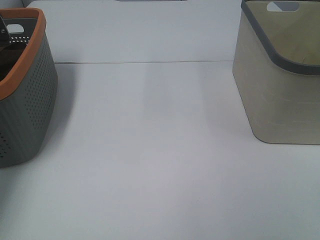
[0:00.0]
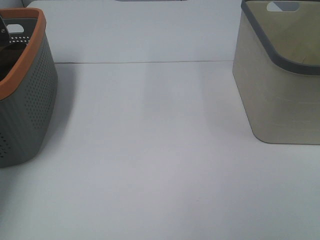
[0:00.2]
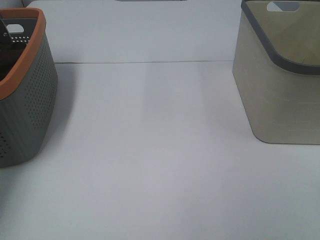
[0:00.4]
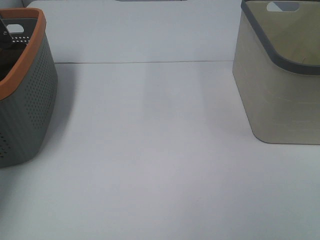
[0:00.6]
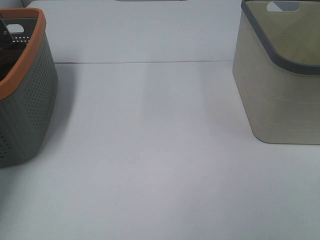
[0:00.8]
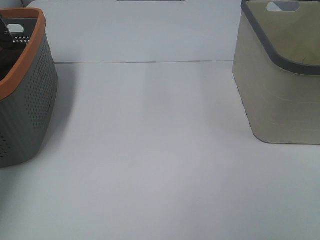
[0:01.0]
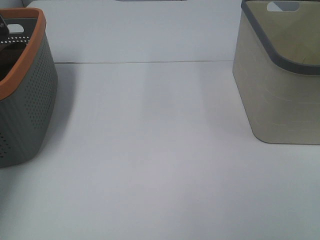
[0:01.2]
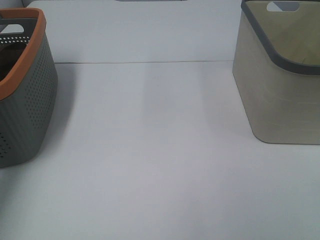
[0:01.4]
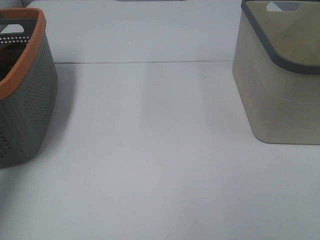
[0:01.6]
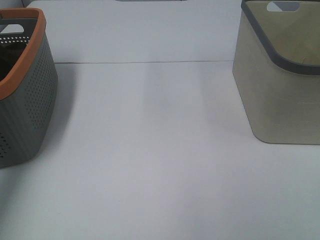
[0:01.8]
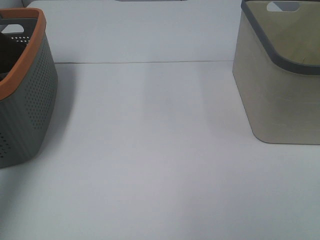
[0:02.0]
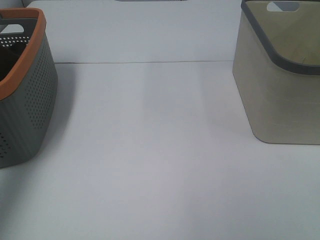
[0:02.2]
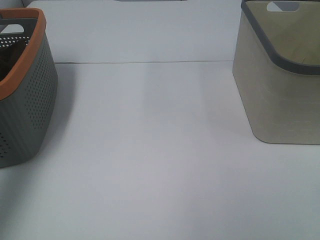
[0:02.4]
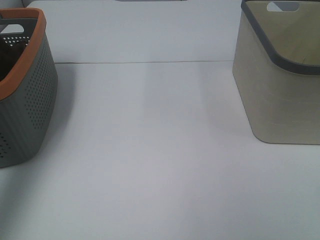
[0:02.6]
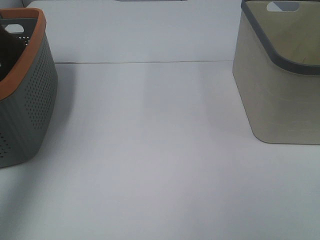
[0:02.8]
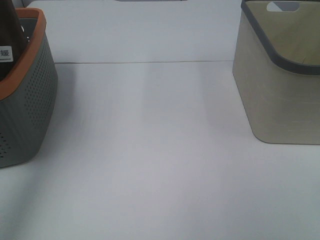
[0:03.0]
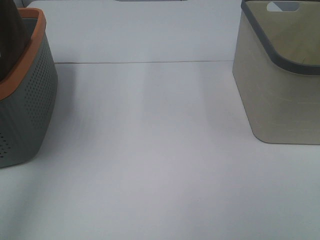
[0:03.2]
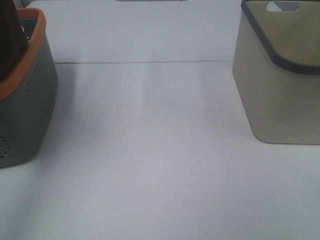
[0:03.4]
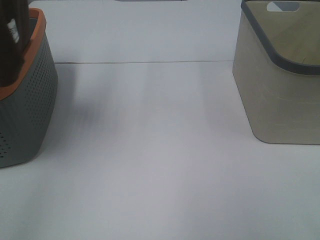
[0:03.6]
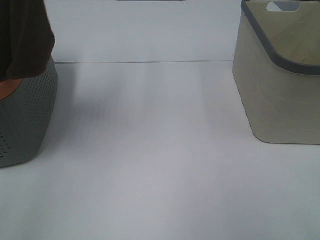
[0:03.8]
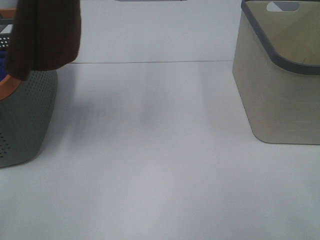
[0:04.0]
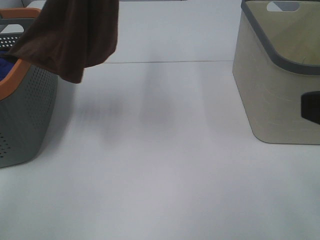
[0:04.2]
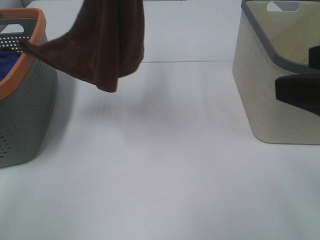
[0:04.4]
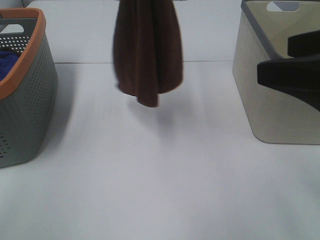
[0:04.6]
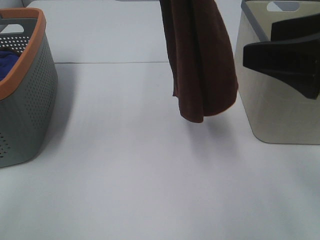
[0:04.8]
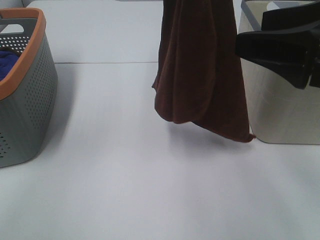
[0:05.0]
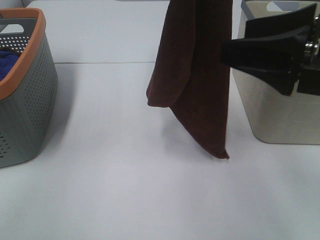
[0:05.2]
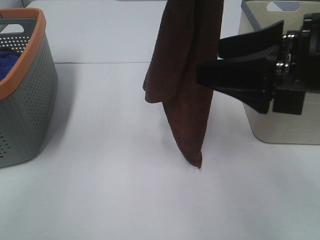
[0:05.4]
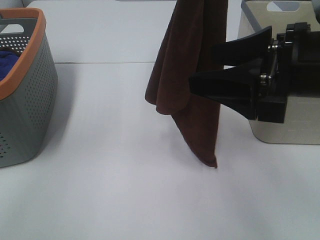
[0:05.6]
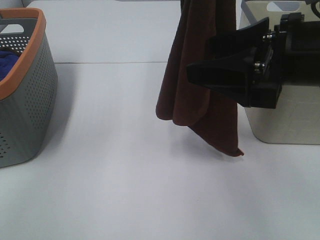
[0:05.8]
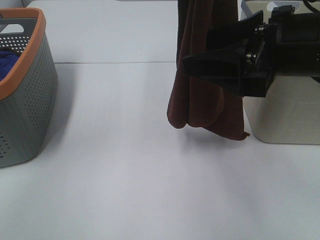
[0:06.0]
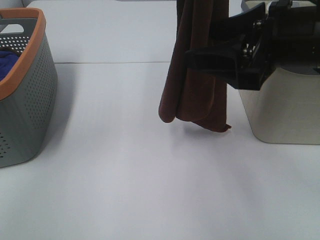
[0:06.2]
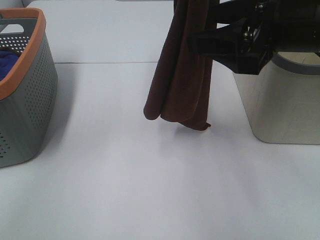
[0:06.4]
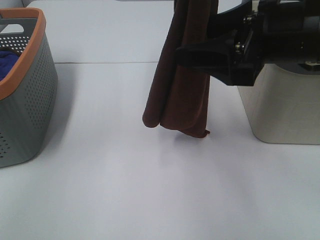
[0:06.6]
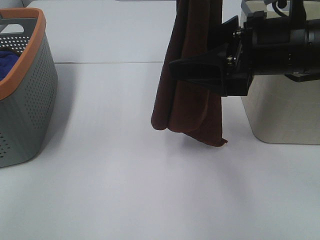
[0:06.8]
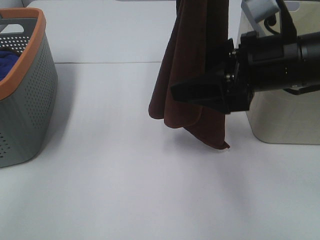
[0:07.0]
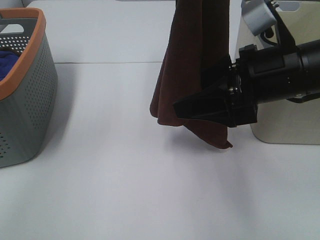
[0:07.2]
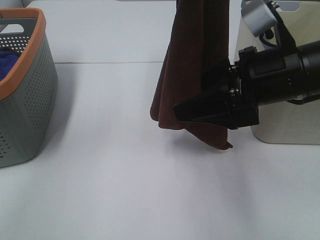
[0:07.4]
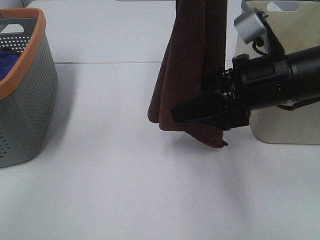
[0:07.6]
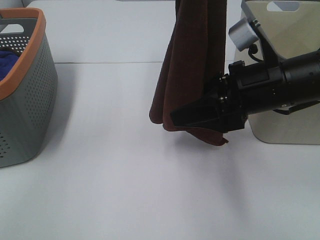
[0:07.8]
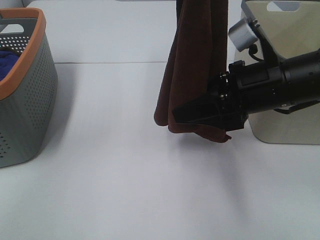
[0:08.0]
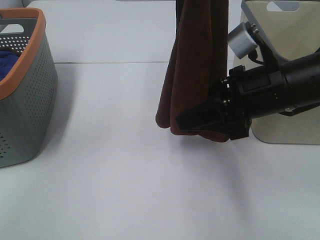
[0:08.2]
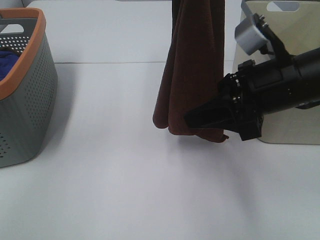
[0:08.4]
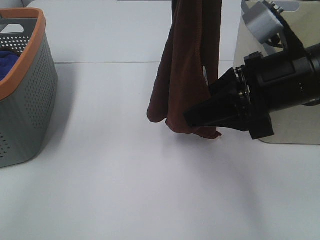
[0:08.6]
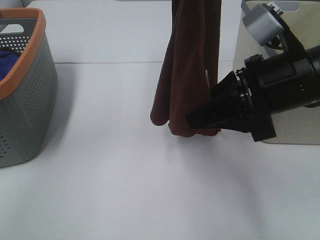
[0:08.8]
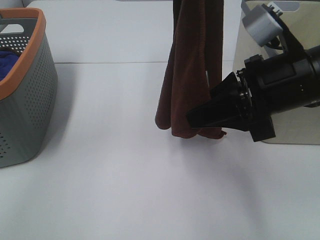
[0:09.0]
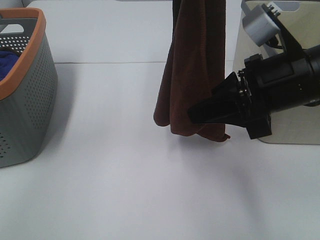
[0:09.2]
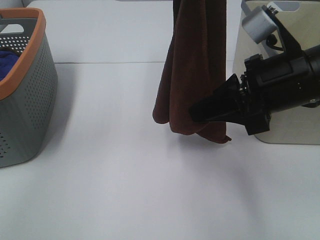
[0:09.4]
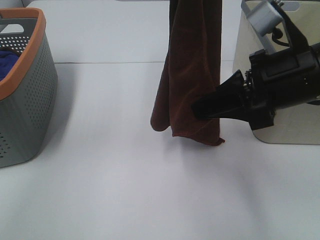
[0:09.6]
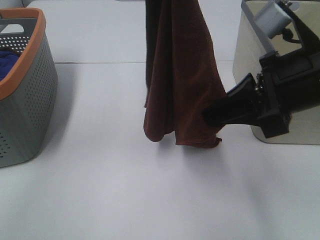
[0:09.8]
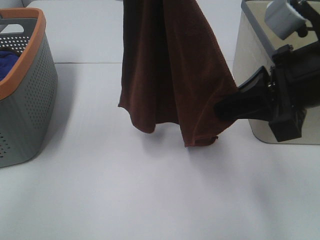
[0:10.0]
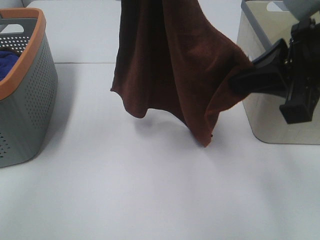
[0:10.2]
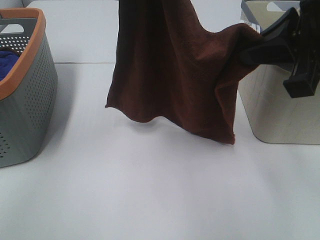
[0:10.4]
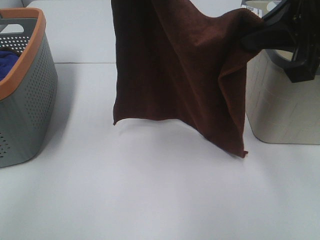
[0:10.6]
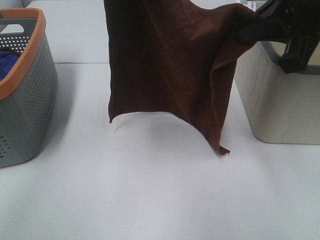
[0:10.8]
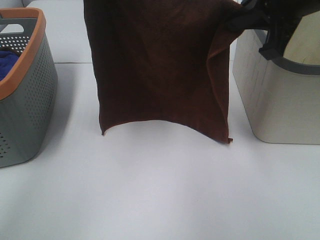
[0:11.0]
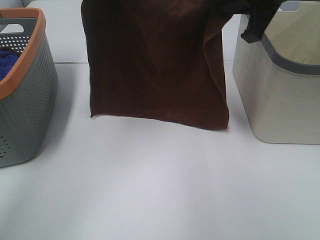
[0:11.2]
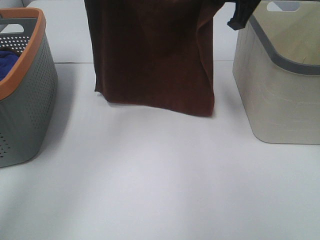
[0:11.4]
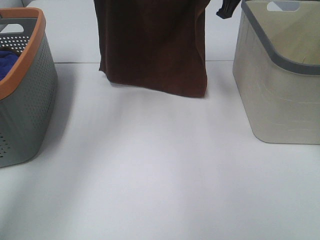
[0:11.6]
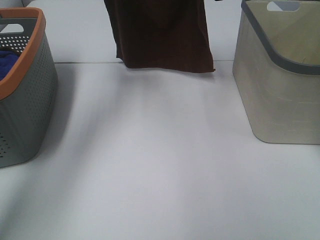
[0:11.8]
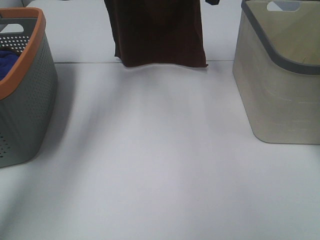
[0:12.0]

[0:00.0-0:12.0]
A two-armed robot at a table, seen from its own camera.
Task of the whole recording: Remove the towel and place it.
Step, 0:02.4 to 0:07.6: Right hand: grab a corner of the brown towel and straighten it.
Step, 0:07.8 to 0:10.4: Left hand: spread the brown towel flat on the table.
Step, 0:07.8 to 0:10.4: Right hand: spread the brown towel flat on the table.
0:01.6 to 0:03.0: The left gripper goes about 25 cm upward, backward and to the right.
0:03.0 to 0:04.4: The right gripper goes roughly 15 cm forward. Meanwhile the left gripper moves to the right, some 15 cm.
0:04.4 to 0:06.0: The left gripper shifts about 10 cm to the right, while the right gripper goes roughly 10 cm forward and to the left.
0:06.0 to 0:07.6: The right gripper heads downward, covering approximately 5 cm.
0:07.6 to 0:09.0: The right gripper closes.
0:09.0 to 0:10.4: The right gripper heads upward, covering roughly 10 cm. The left gripper shifts by approximately 5 cm.
0:10.4 to 0:12.0: The right gripper is displaced forward by some 30 cm. Meanwhile the left gripper heads forward, downward and to the left, covering about 25 cm.

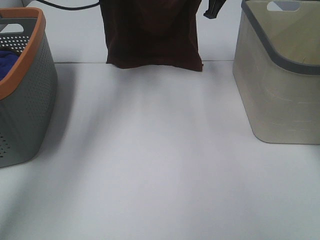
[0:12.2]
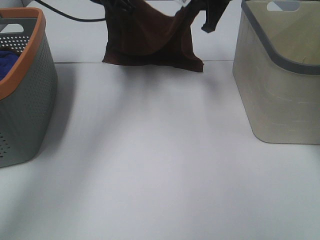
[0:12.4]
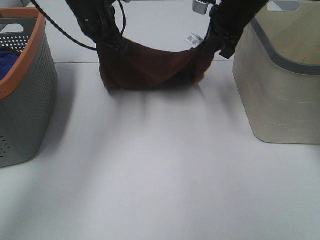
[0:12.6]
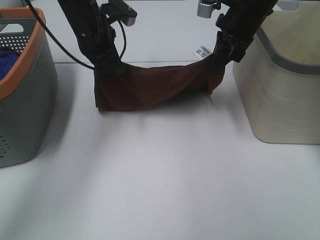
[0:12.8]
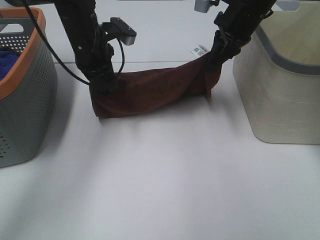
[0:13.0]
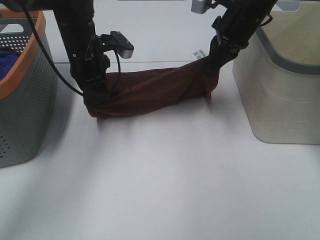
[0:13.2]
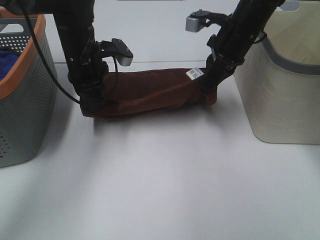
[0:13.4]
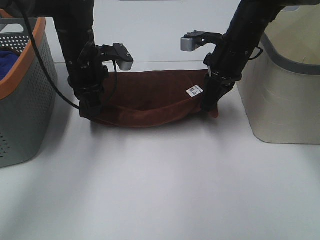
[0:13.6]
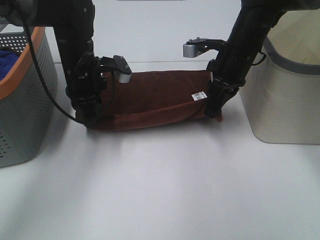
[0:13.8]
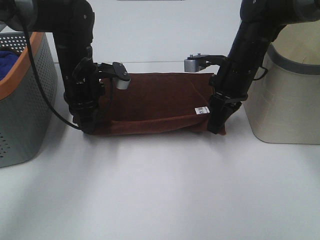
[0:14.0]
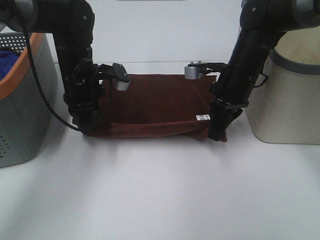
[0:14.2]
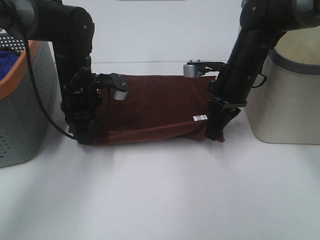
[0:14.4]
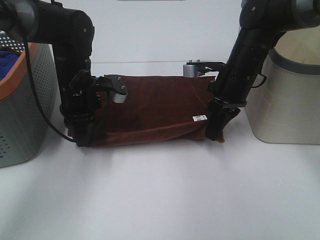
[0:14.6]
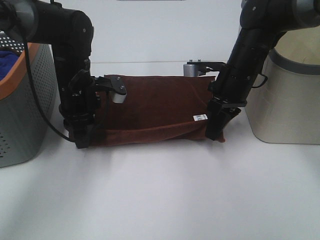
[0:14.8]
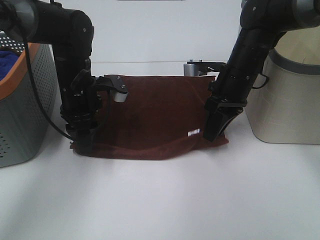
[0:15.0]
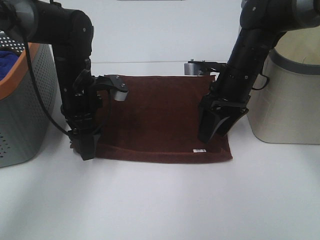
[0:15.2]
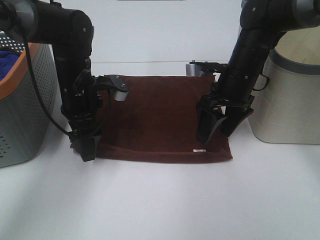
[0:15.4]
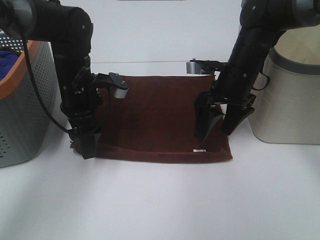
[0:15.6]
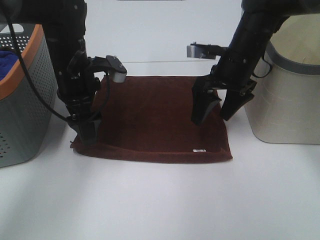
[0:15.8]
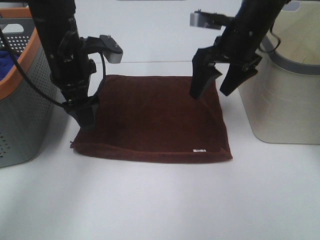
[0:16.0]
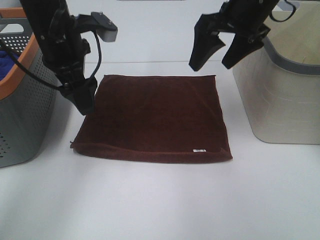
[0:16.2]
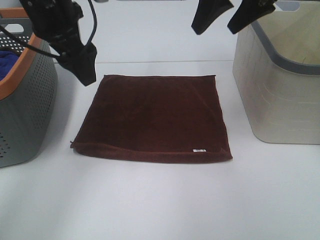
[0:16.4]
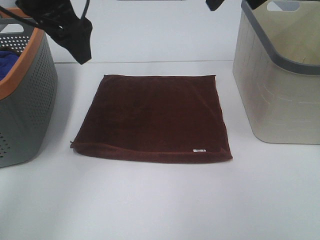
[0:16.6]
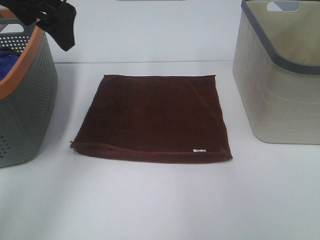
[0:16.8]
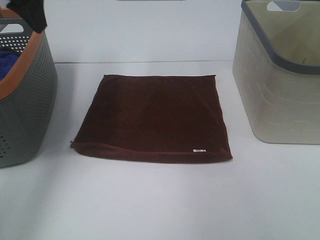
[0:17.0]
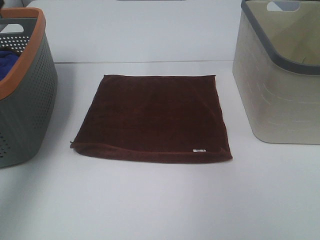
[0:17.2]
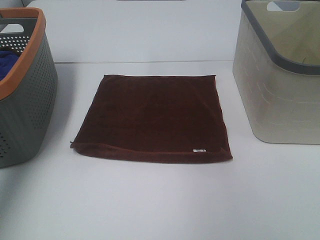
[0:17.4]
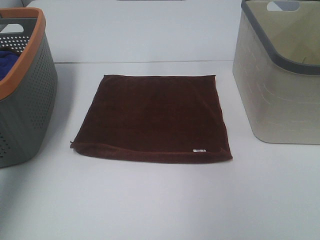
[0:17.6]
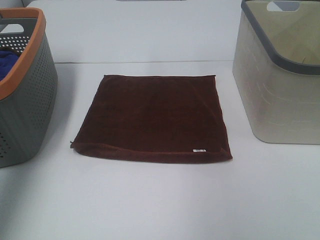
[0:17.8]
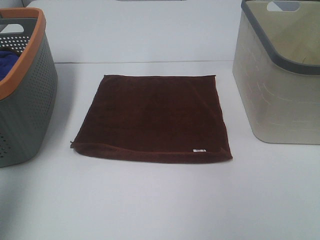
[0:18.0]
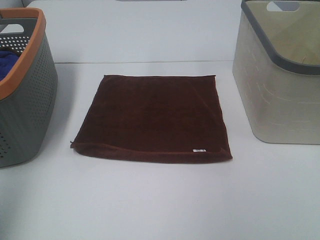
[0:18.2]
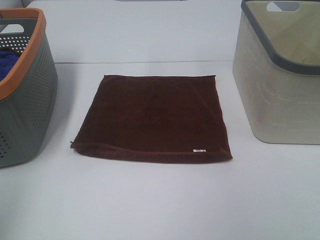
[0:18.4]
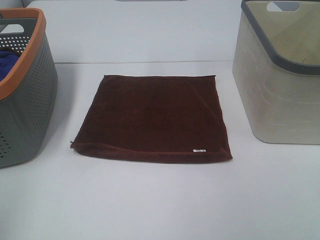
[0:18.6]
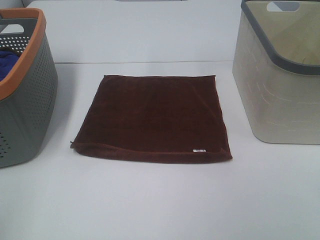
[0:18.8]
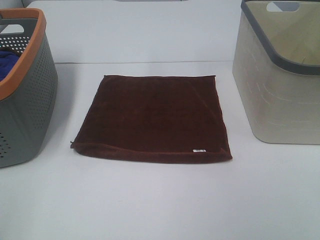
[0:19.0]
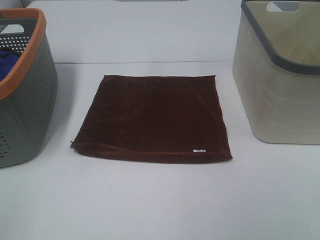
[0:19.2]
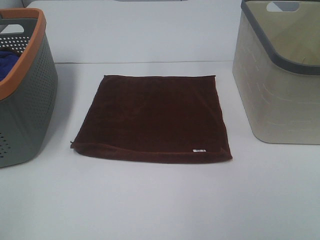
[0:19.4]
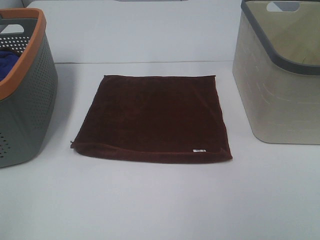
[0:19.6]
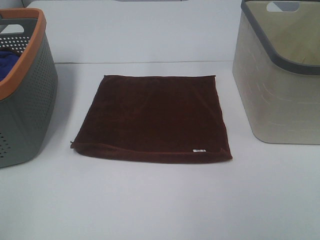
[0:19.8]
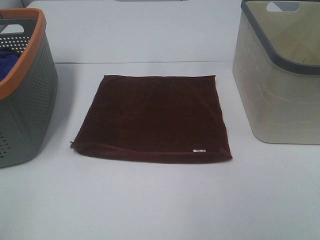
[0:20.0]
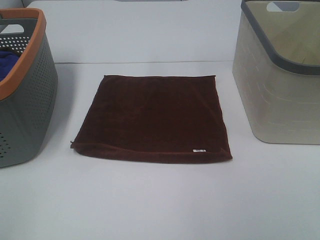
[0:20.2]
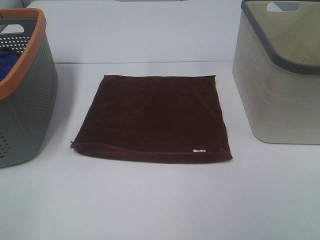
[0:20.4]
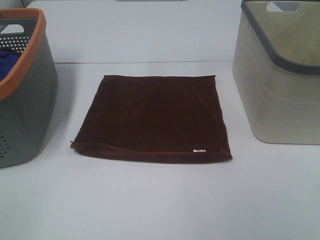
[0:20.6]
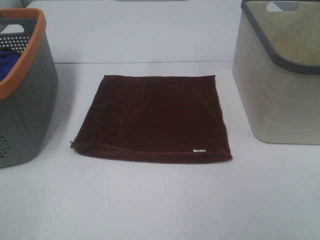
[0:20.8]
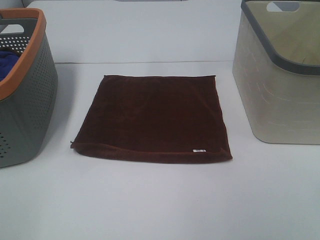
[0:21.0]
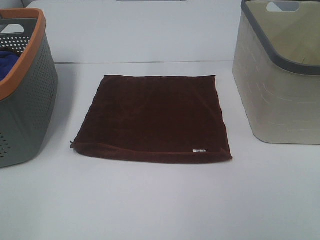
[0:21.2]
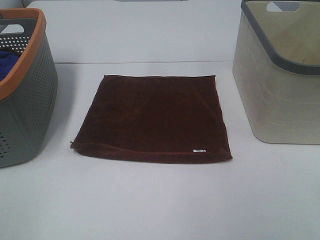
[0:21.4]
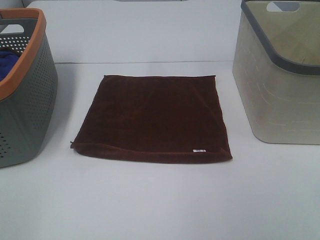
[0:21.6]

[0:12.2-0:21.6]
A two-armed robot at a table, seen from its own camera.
Task of the whole recording: Remove the towel and place it.
0:12.2 to 0:13.8: The grippers both shift downward and backward by some 15 cm.
0:13.8 to 0:15.4: The left gripper opens up. Meanwhile the right gripper opens.
0:15.4 to 0:17.0: The right gripper travels upward by some 25 cm; the left gripper goes about 25 cm upward and to the left.
0:17.0 to 0:18.4: Both grippers move backward, some 30 cm.

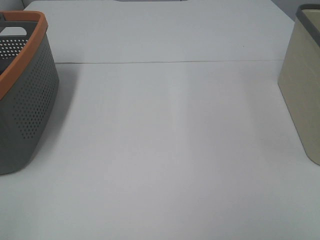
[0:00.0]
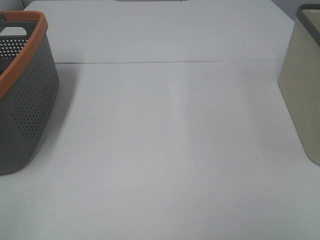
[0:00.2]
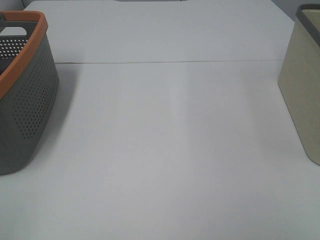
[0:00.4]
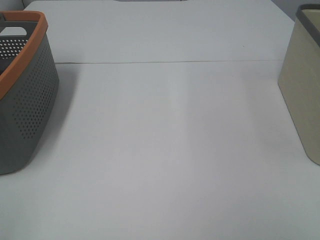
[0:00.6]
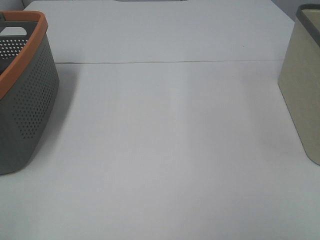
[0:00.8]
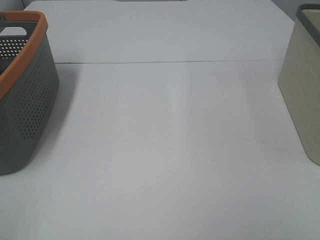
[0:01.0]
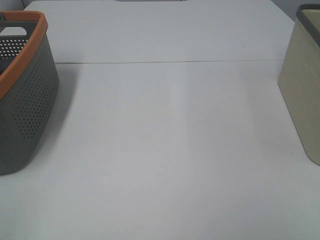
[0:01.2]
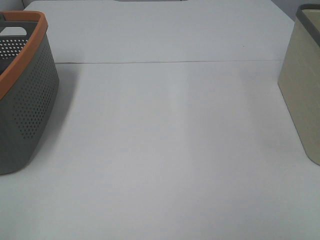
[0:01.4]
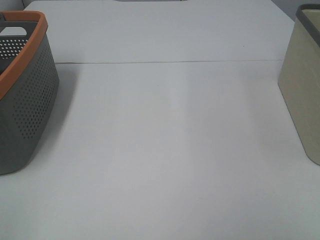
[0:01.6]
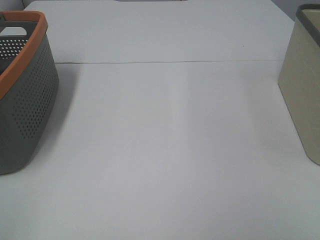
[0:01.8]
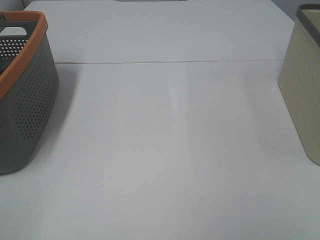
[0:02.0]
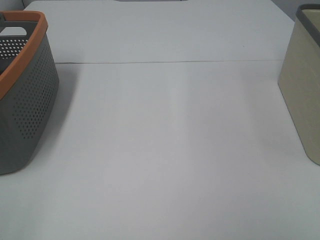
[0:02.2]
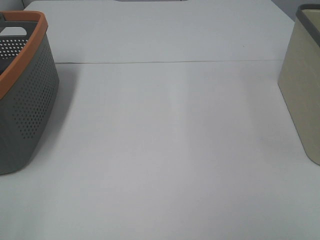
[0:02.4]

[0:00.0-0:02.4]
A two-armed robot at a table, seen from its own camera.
Task of the whole recording: Remove the towel and place it.
0:00.0 to 0:02.4: The two grippers keep their place.
